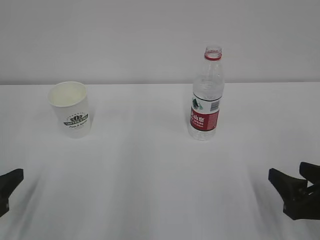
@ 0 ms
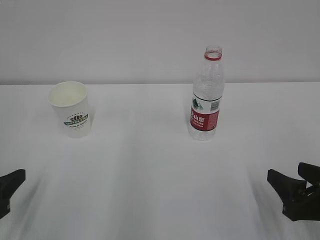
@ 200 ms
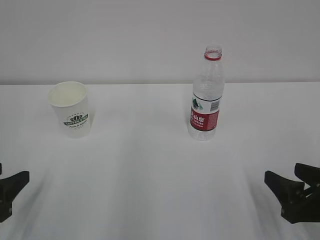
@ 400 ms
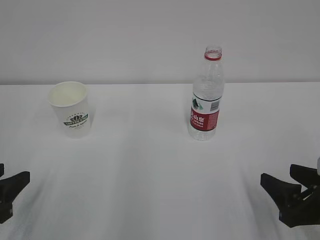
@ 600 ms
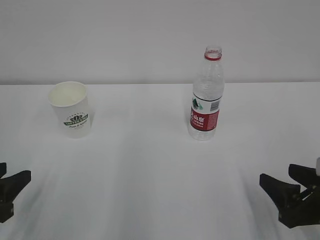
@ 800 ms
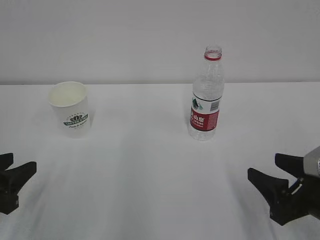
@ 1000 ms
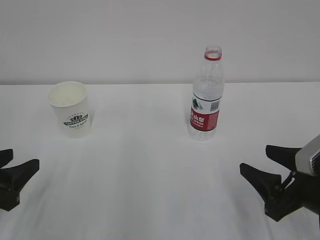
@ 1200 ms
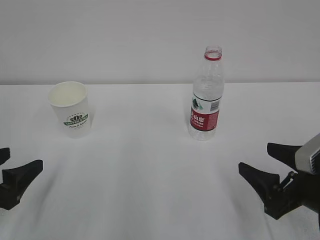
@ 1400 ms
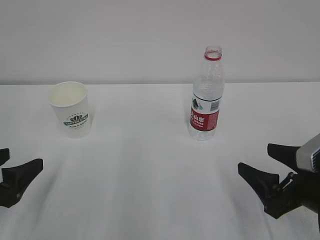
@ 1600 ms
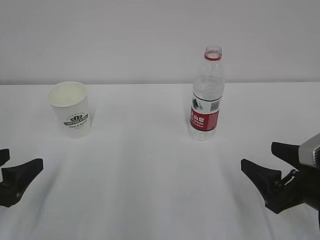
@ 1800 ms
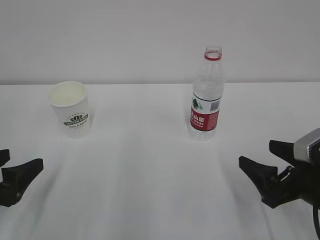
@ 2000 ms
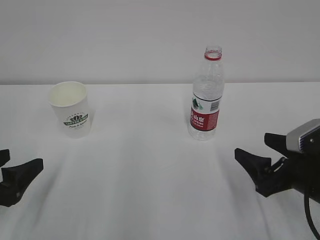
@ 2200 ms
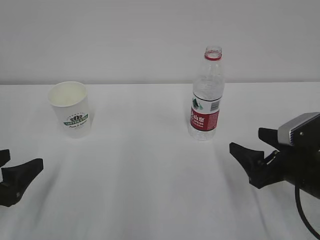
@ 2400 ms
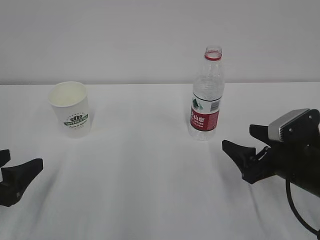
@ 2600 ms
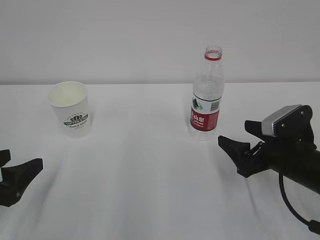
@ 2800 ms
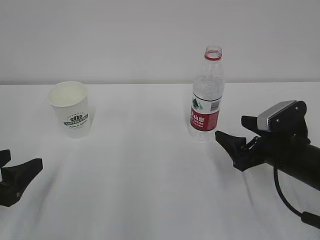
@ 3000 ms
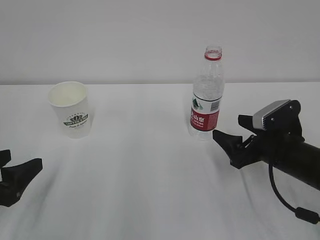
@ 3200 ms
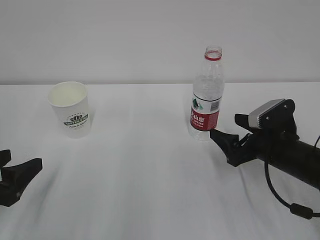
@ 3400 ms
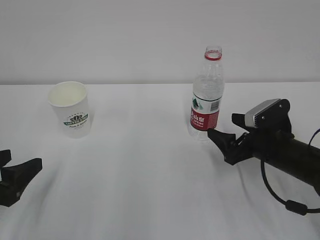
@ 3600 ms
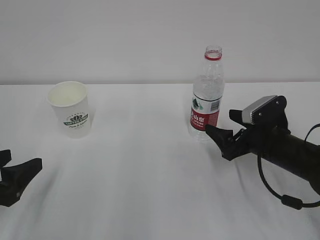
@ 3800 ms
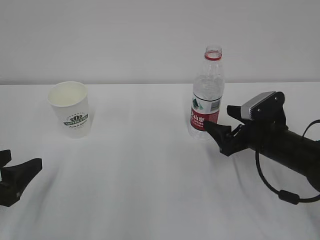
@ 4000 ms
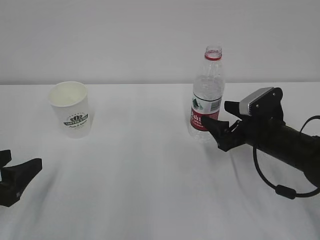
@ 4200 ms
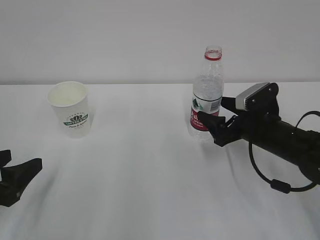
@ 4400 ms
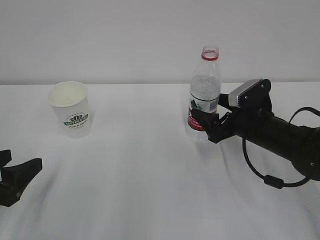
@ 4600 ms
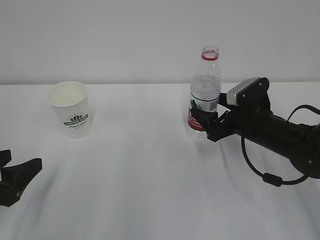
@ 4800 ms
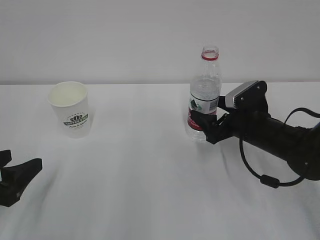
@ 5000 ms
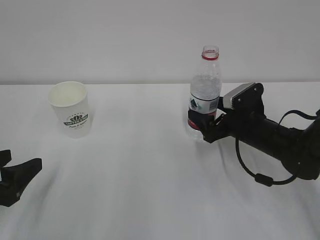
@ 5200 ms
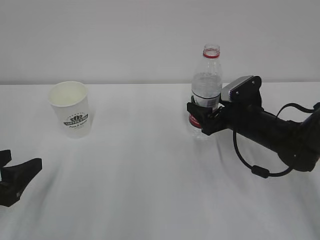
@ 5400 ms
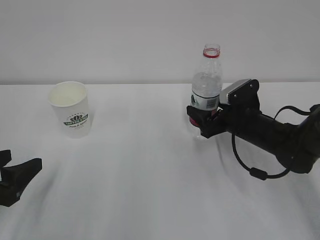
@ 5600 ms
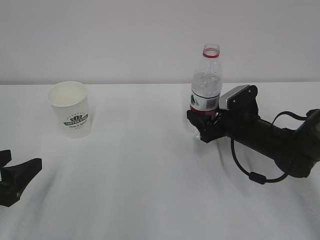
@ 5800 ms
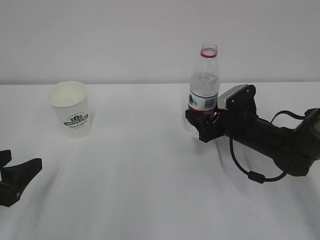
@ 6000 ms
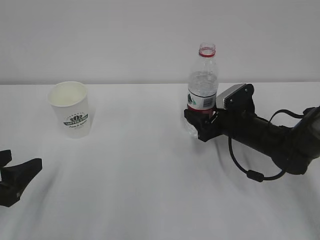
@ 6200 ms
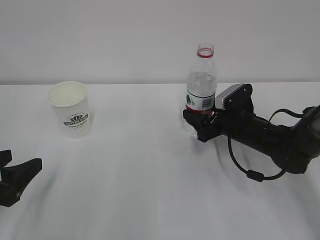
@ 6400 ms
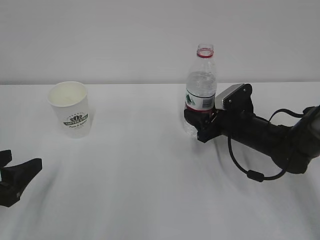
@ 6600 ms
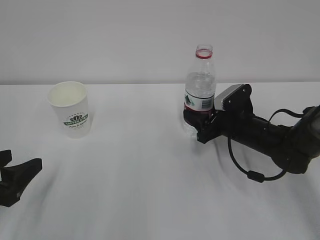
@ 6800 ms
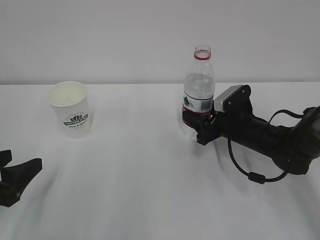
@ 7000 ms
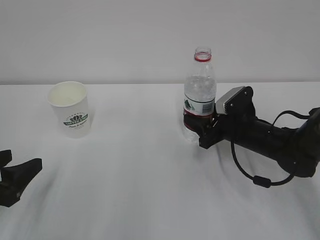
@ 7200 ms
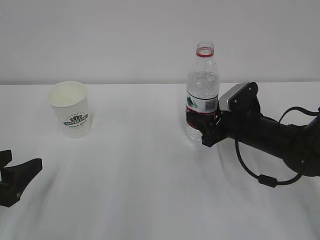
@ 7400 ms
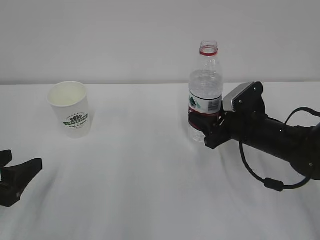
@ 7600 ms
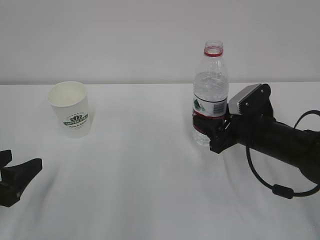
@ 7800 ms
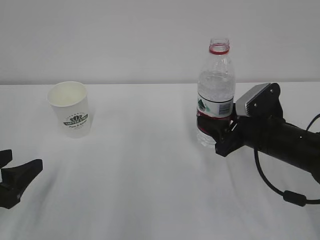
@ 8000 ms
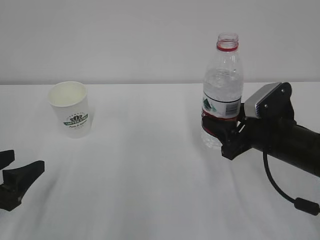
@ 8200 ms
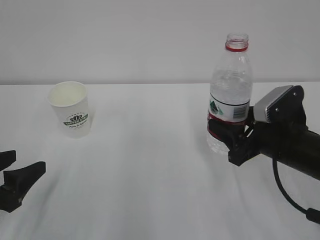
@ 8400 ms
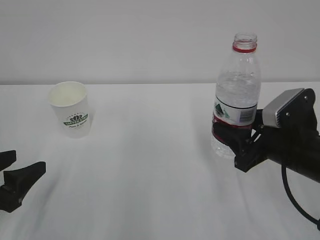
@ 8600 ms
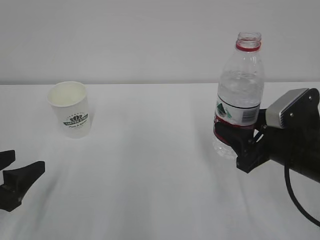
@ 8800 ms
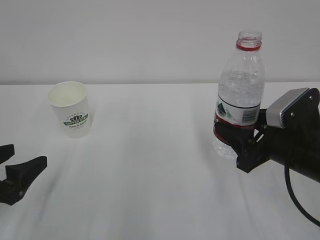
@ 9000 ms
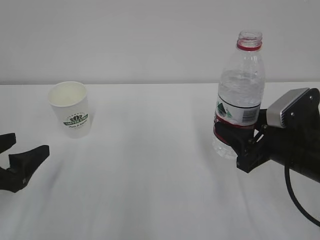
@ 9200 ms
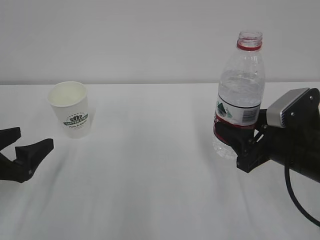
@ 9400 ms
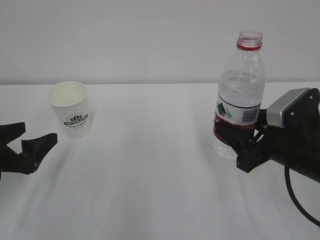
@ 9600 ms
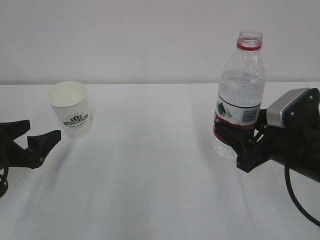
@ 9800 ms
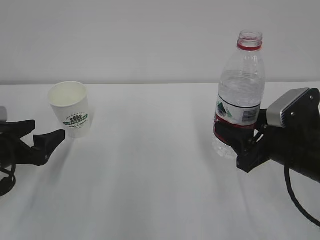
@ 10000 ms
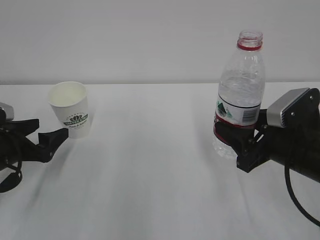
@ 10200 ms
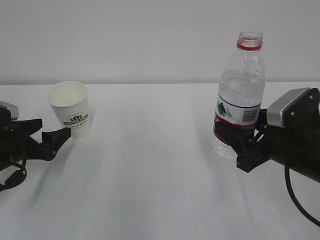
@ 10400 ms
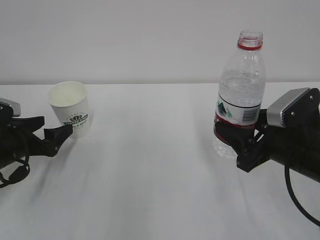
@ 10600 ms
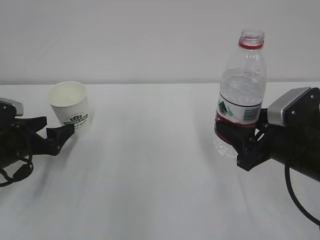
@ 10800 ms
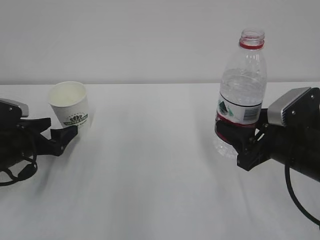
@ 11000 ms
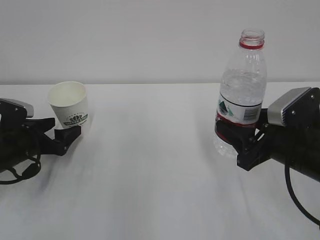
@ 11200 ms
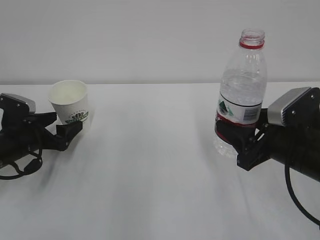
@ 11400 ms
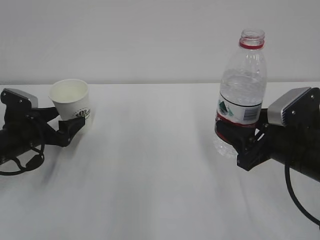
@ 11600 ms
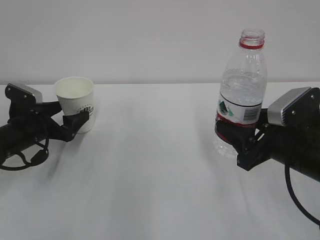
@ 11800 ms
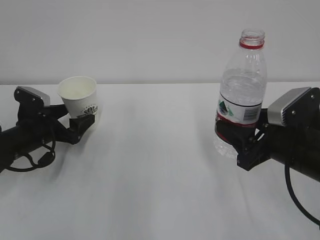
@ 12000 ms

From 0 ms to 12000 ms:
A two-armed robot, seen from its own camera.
From 0 ms to 1600 ms: The left gripper opens. The right gripper opens up.
From 1600 ms to 3000 ms: The right gripper goes about 10 cm forward.
From 3000 ms to 4400 ms: The right gripper shifts some 5 cm forward.
From 4400 ms to 6000 ms: The right gripper ends up about 5 cm from where it was, and closes.
From 6000 ms to 7600 ms: The right gripper closes.
From 7600 ms to 9000 ms: The right gripper heads backward and upward, covering roughly 10 cm.
From 9000 ms to 10400 ms: The left gripper heads forward, covering roughly 10 cm.
From 10400 ms to 12000 ms: The left gripper travels forward by about 5 cm.

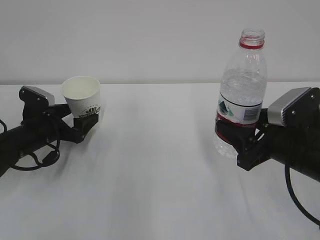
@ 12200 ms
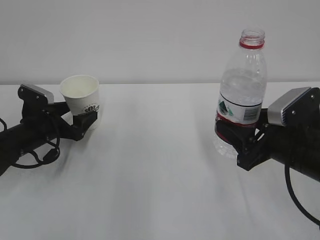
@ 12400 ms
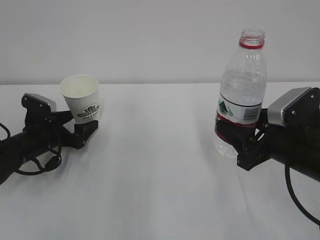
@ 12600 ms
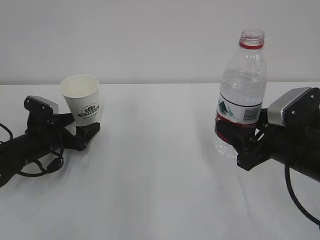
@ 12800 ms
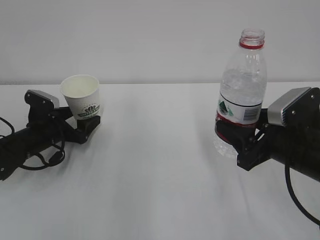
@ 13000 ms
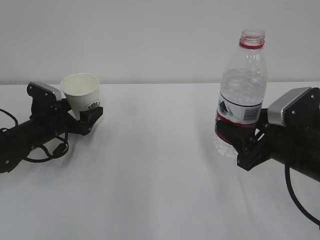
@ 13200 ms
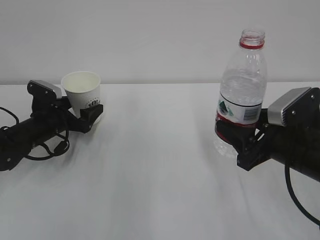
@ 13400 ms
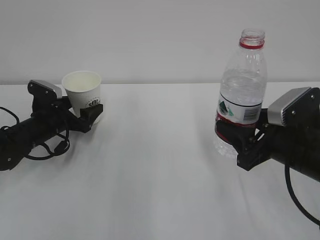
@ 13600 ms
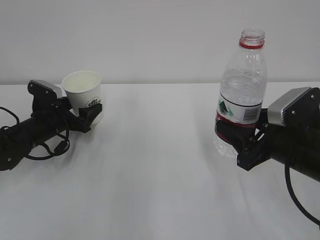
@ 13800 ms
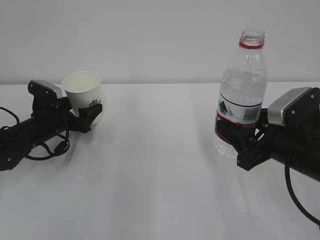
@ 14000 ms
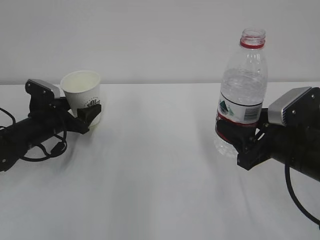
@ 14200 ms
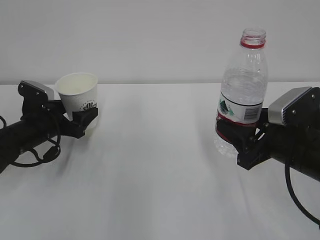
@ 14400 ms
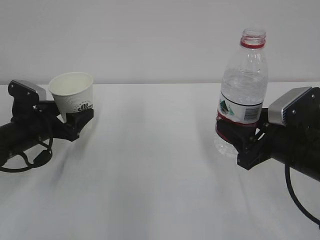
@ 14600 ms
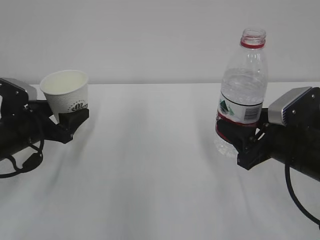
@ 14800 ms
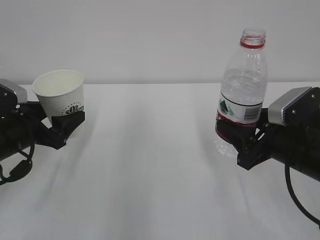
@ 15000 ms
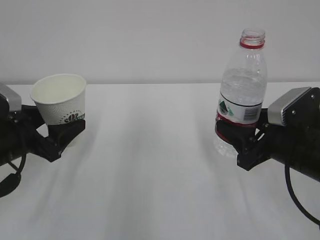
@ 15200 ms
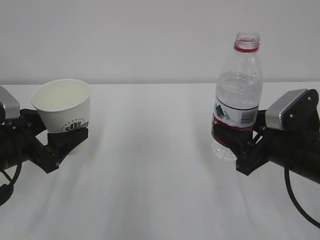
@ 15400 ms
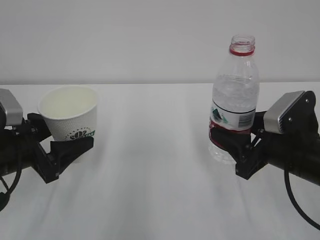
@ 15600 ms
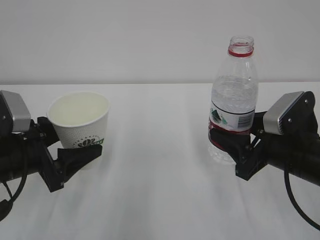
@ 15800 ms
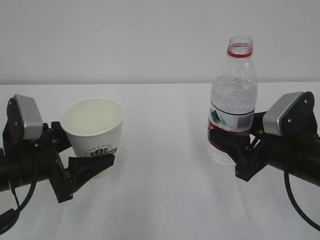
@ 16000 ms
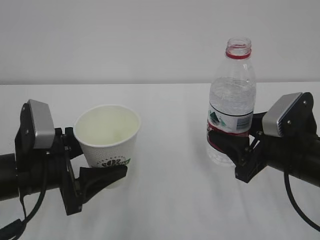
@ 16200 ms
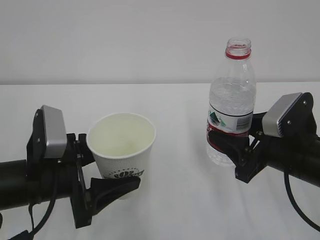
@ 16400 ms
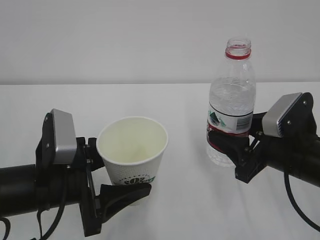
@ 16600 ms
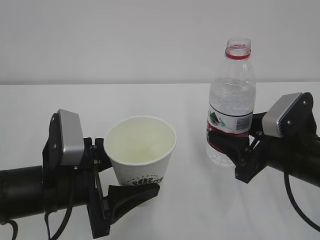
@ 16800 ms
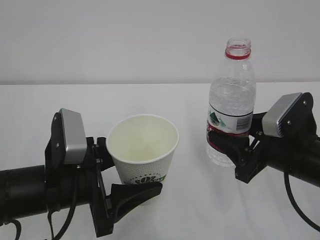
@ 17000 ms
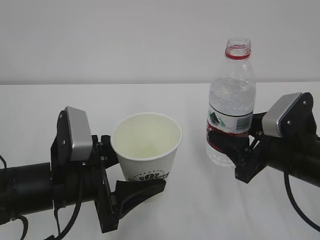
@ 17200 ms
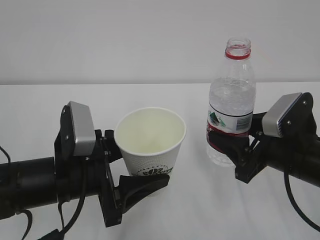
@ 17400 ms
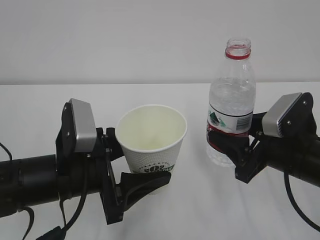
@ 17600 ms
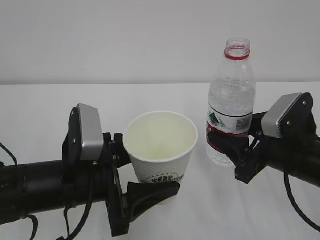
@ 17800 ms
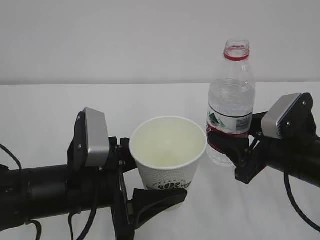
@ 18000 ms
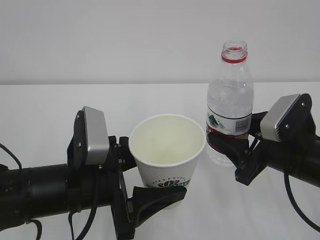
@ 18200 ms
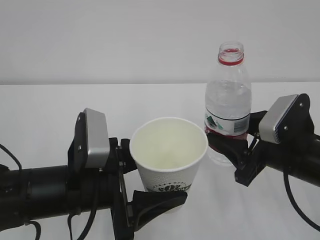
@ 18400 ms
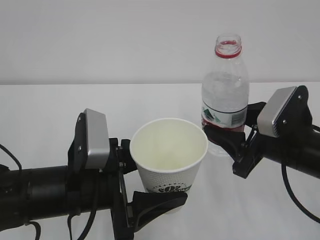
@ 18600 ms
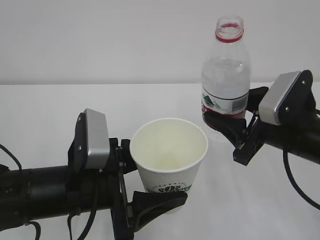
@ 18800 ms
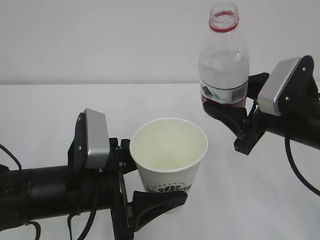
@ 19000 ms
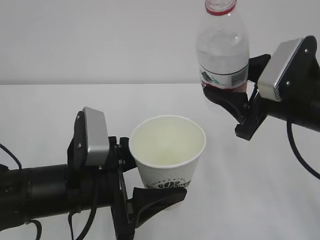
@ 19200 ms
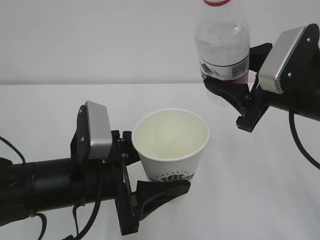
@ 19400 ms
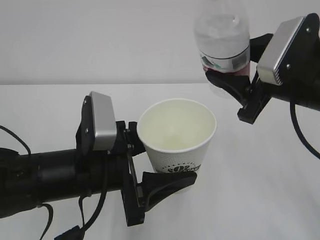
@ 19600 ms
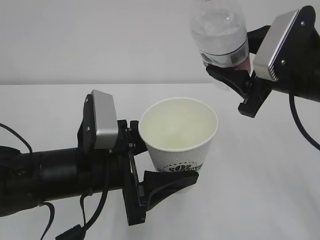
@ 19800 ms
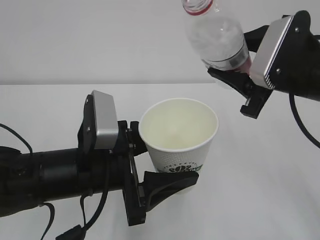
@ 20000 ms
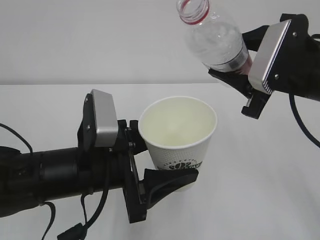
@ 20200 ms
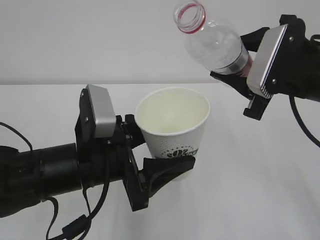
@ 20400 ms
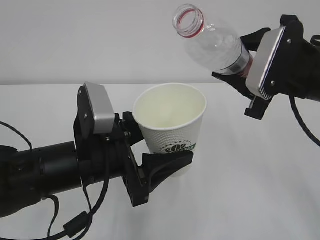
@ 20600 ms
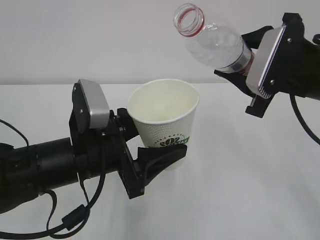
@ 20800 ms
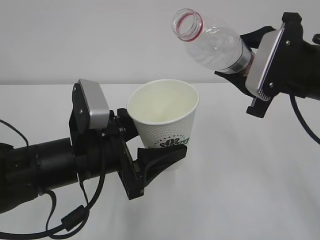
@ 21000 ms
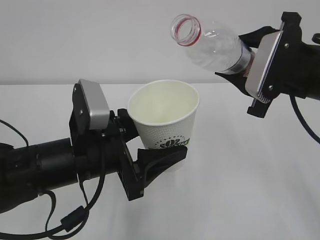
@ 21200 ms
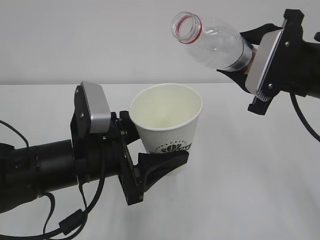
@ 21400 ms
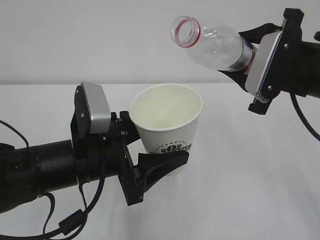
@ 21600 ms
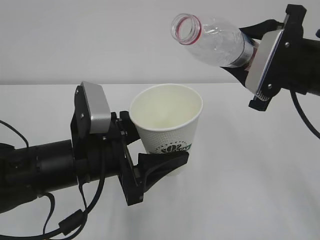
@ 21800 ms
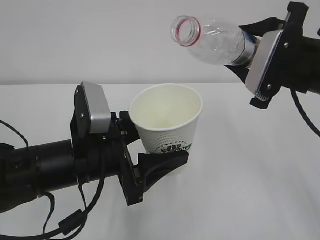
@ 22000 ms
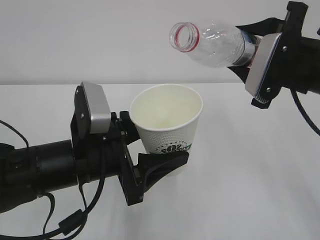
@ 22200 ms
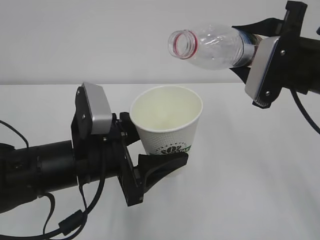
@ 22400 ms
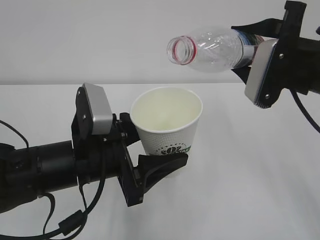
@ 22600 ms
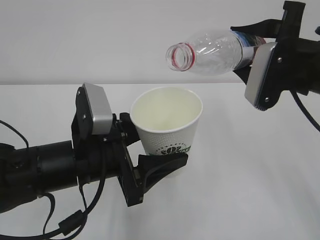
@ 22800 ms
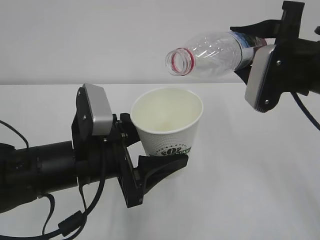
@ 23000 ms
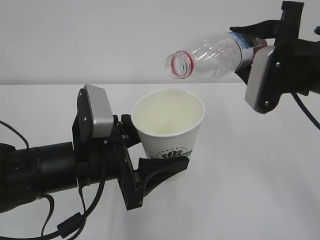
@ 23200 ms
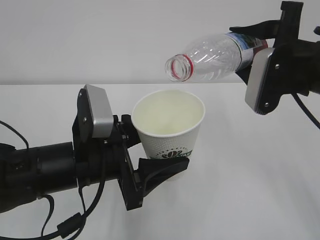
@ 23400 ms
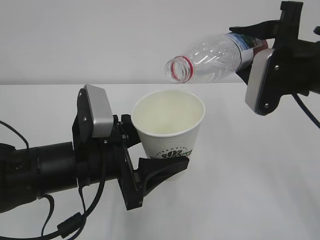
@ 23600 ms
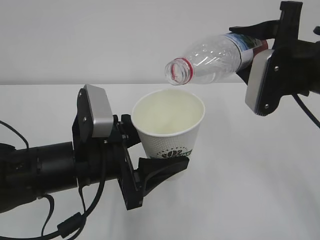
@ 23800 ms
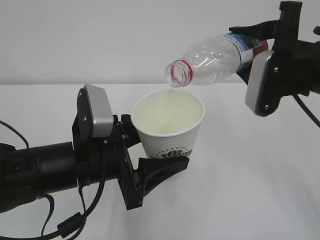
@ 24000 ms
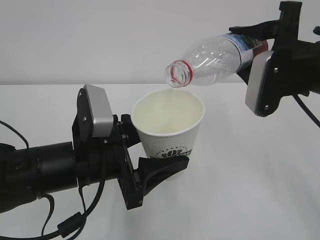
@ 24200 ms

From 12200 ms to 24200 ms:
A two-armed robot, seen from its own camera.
From 12200 ms to 13800 ms: The left gripper closes its fingers.
From 13800 ms to 15200 ms: The left gripper moves backward and upward, about 15 cm.
From 15200 ms to 16600 ms: The left gripper travels to the right and backward by approximately 10 cm.
From 16600 ms to 18200 ms: The grippers stay close to where they were, moving slightly.
From 18200 ms to 19800 ms: The right gripper shifts some 10 cm upward.
From 21200 ms to 22600 ms: The grippers stay close to where they were, moving slightly.
From 22600 ms to 24200 ms: The grippers make only small movements.
